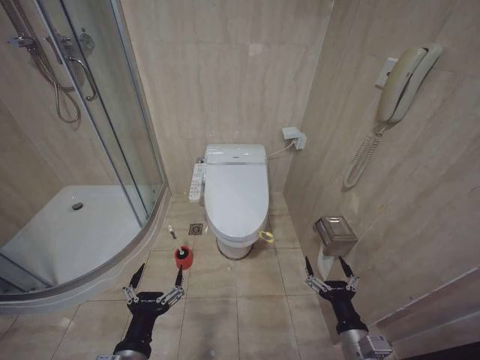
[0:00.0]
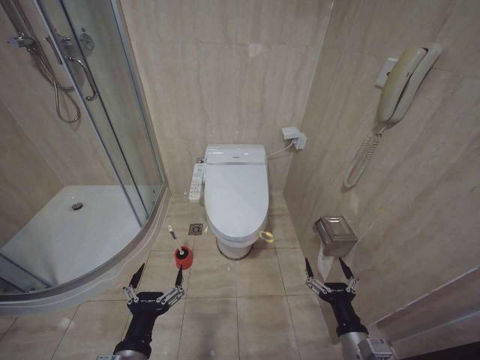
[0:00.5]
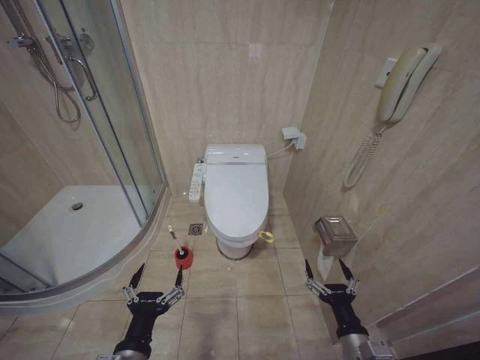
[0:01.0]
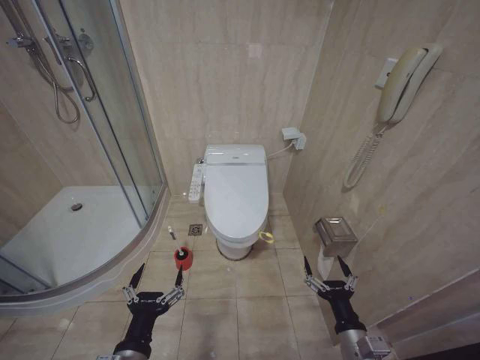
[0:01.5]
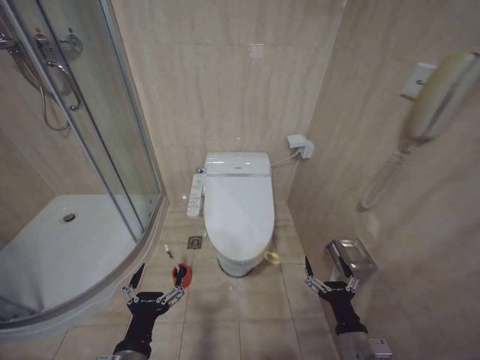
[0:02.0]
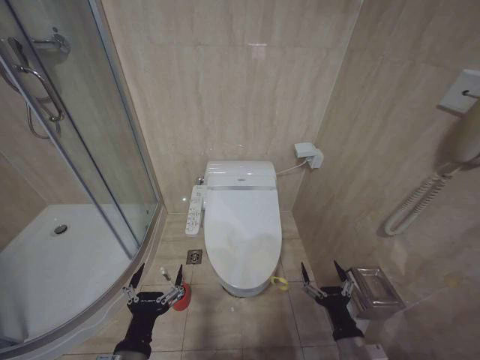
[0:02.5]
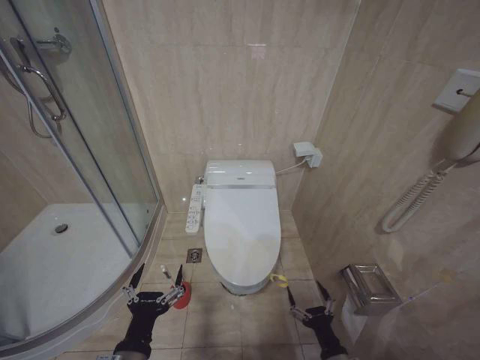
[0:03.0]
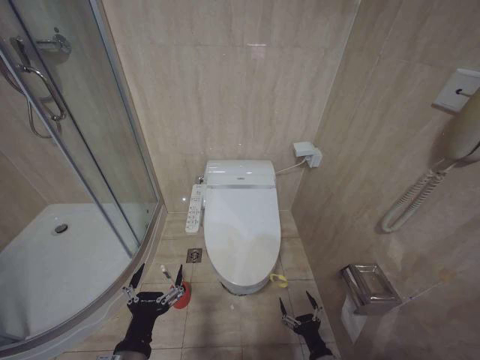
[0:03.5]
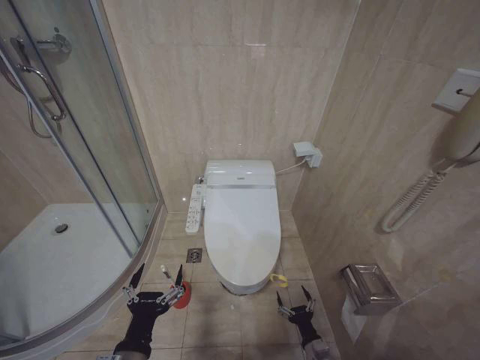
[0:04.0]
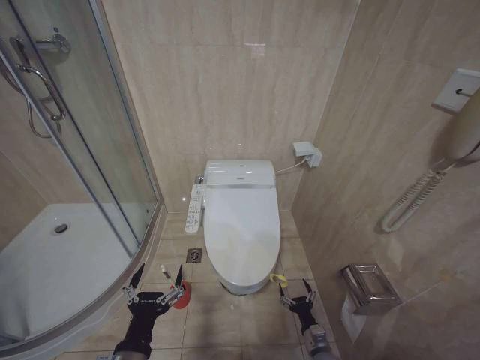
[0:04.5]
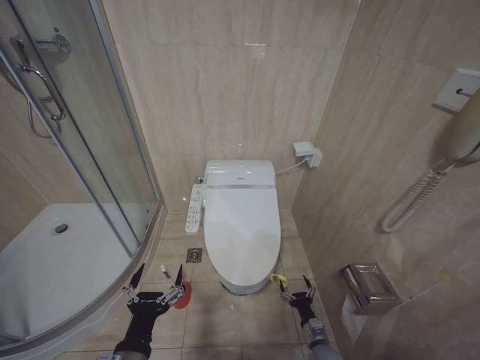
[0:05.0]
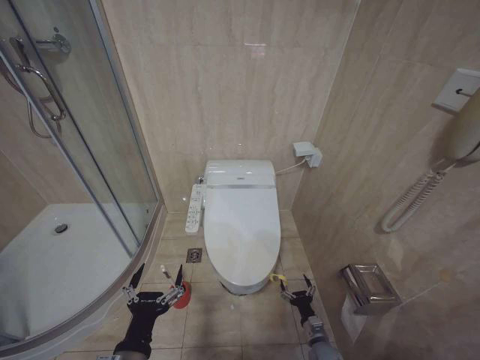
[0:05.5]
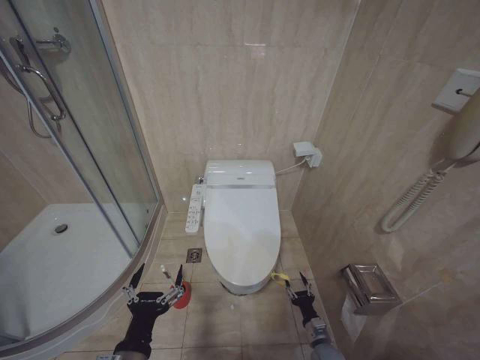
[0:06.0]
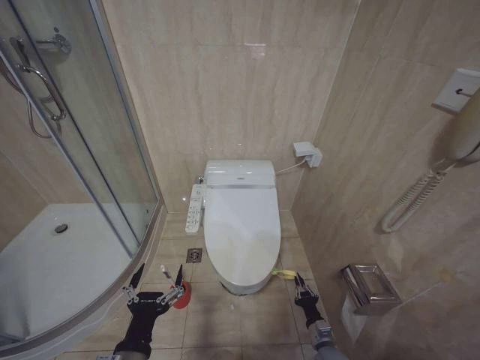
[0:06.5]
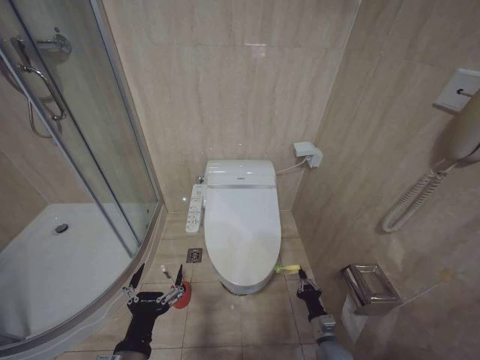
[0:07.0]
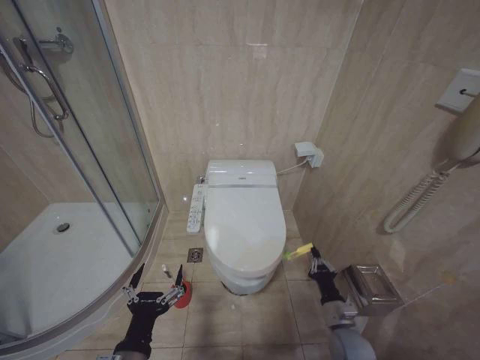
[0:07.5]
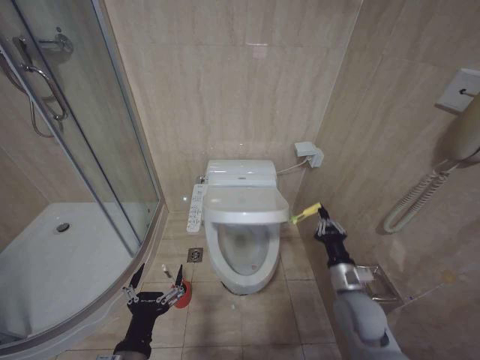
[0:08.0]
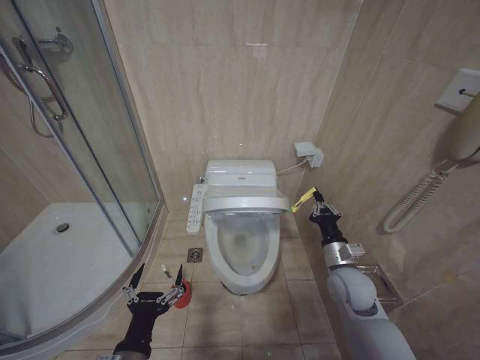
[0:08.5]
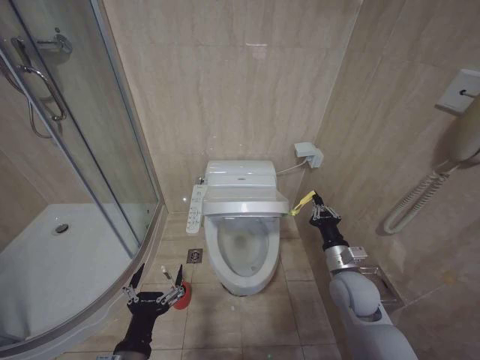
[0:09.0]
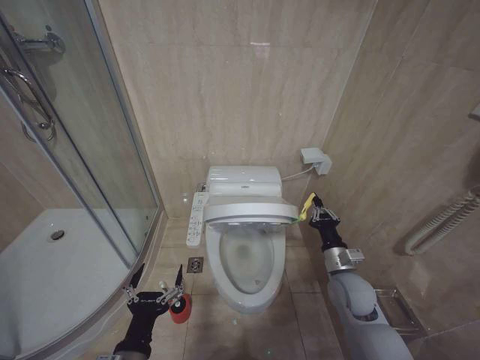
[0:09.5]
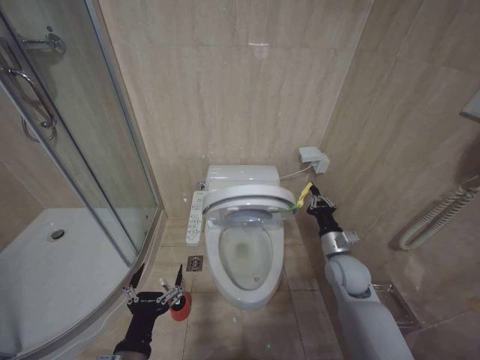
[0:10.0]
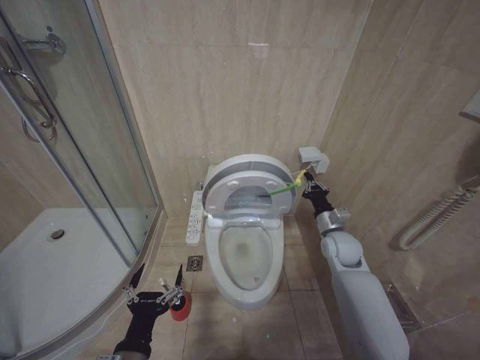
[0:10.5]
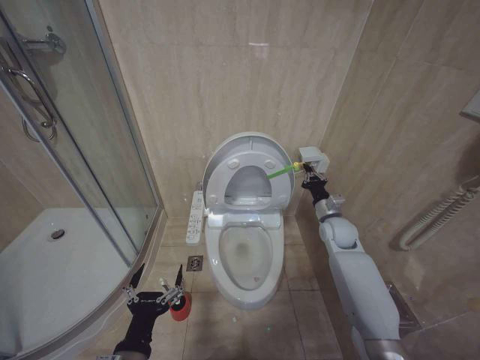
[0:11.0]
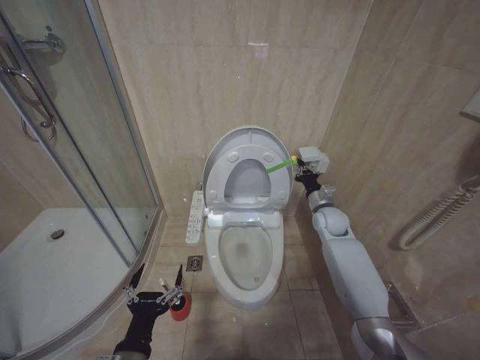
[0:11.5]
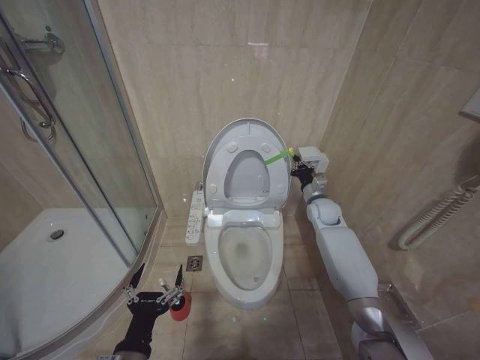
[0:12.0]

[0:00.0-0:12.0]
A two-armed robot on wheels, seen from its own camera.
Task of the whole recording: Open the toilet lid, clean the toilet bowl with a toilet brush, close the toilet lid, and flush.
0:02.0 to 0:04.0: The right gripper moves downward, approximately 20 cm.
0:04.0 to 0:06.0: The right gripper is displaced forward by about 5 cm.
0:06.0 to 0:08.0: The right gripper is displaced upward by roughly 25 cm, and closes.
0:08.0 to 0:10.0: The right gripper is displaced forward by approximately 10 cm.
0:10.0 to 0:12.0: The right gripper moves forward, roughly 20 cm.

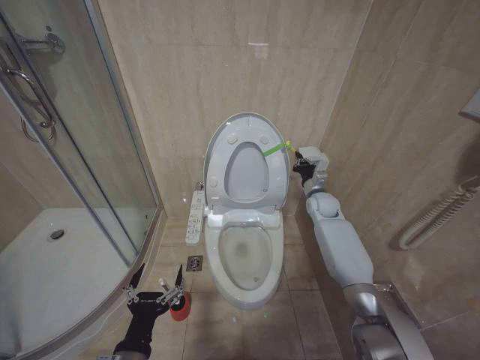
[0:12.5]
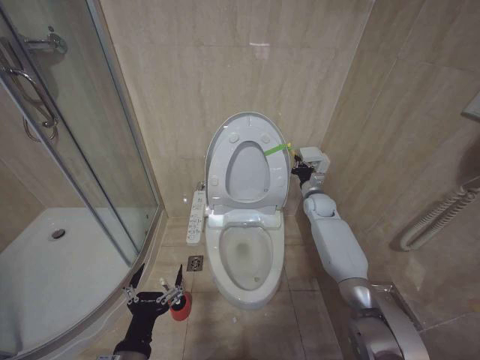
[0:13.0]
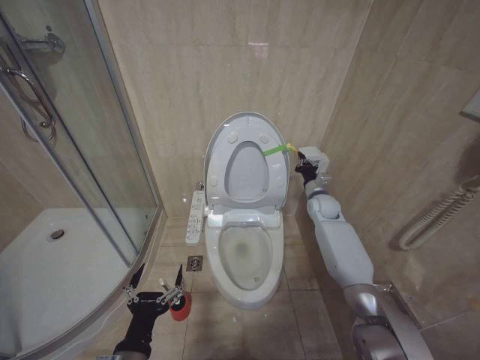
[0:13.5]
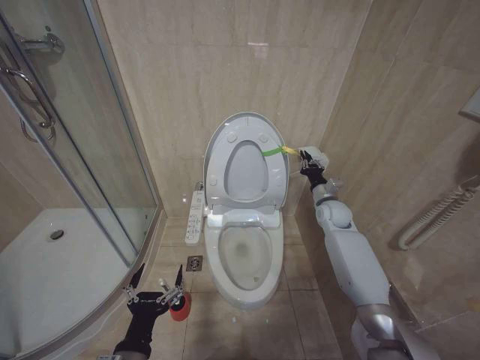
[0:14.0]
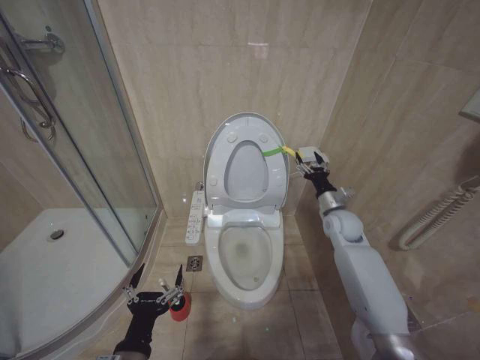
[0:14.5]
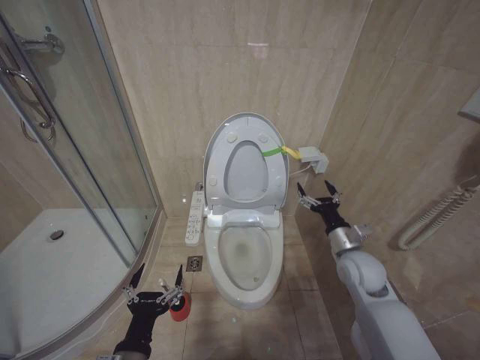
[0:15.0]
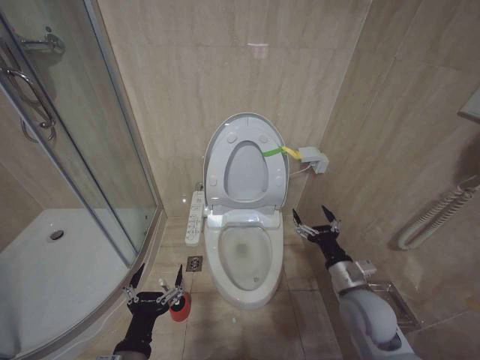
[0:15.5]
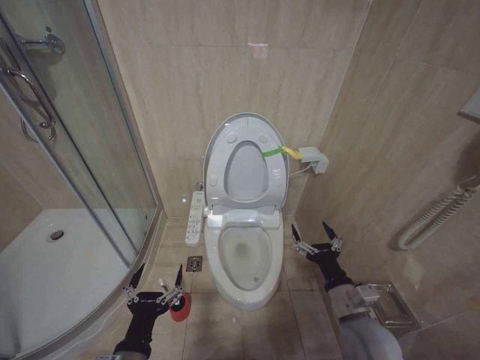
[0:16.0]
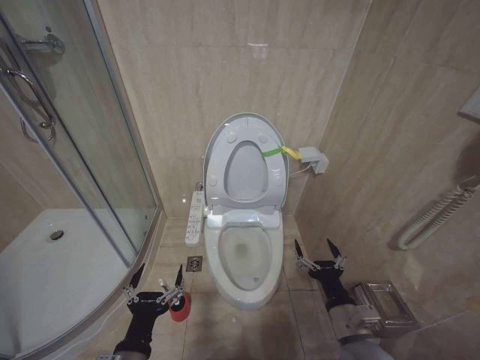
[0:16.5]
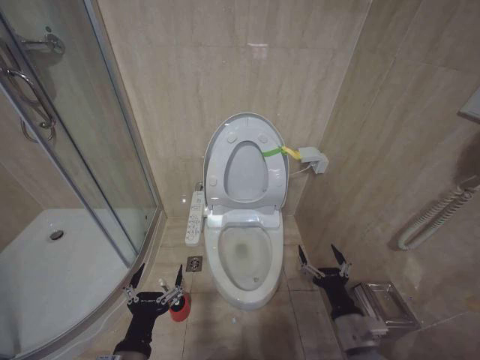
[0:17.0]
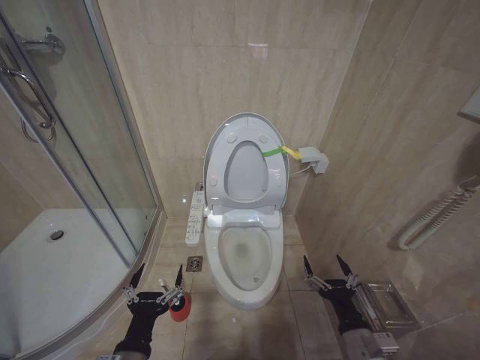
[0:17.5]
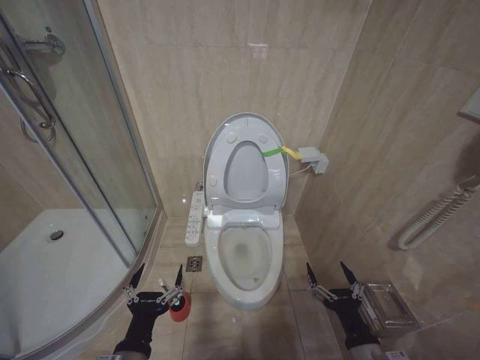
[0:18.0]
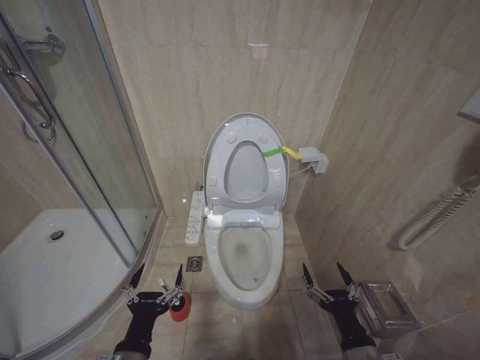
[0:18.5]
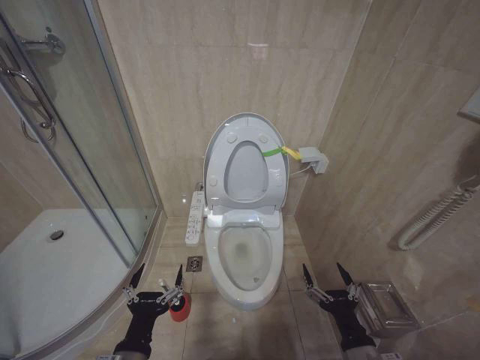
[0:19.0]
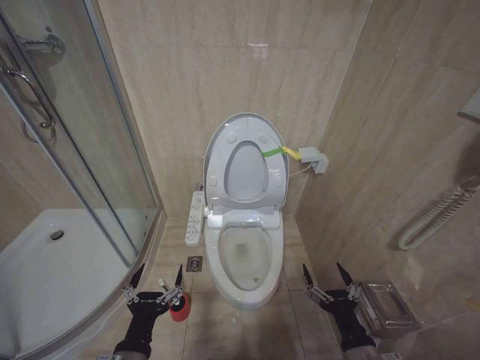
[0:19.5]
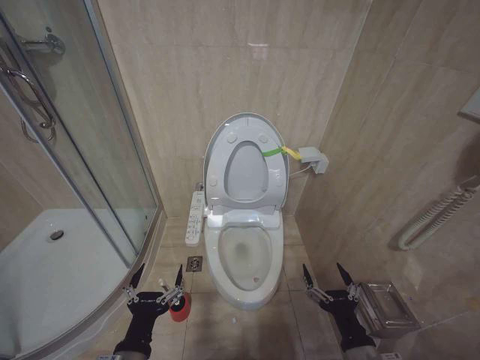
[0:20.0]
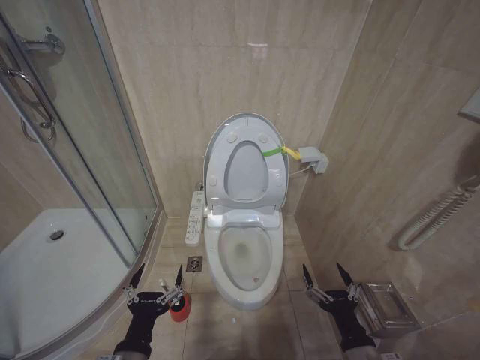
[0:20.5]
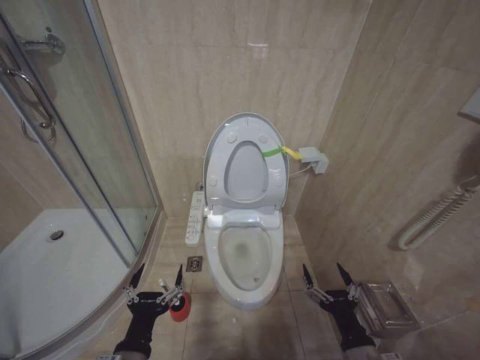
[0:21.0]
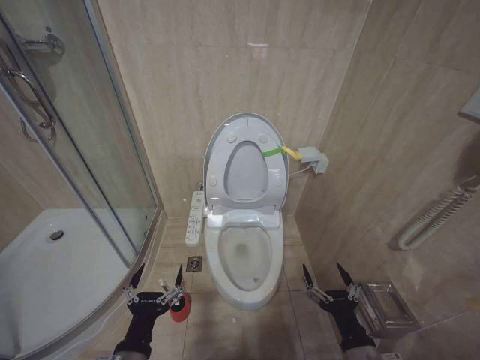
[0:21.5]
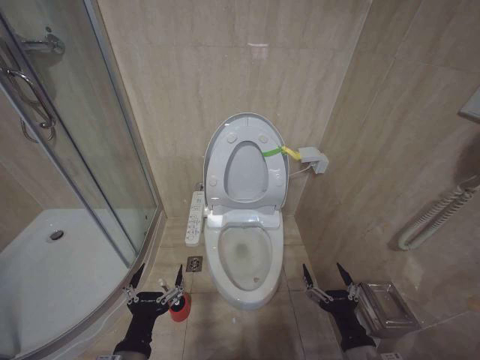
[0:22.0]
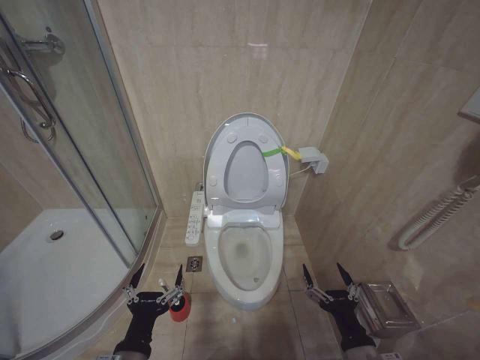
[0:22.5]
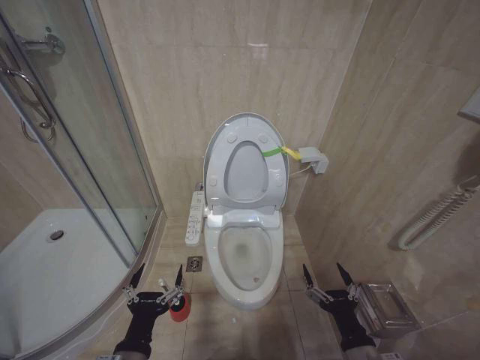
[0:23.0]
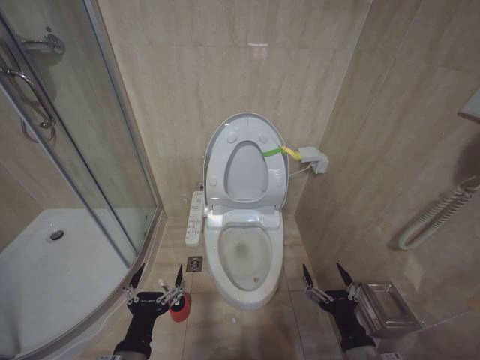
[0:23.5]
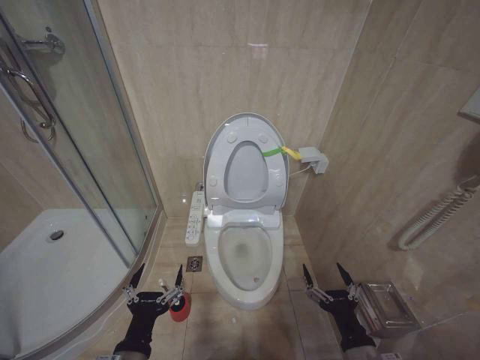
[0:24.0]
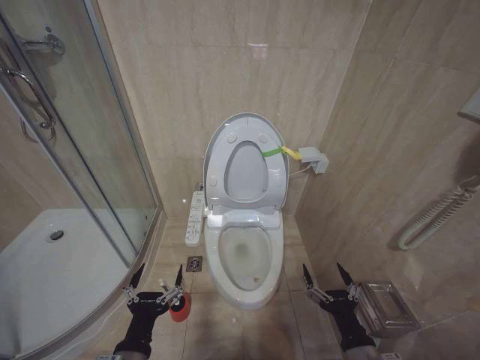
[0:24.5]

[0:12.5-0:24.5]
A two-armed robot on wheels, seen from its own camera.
Task of the whole recording: Open the toilet lid, clean the toilet bowl with a toilet brush, close the toilet lid, and flush.
0:12.5 to 0:14.5: The right gripper goes some 5 cm backward, and opens up.
0:14.5 to 0:16.5: The right gripper is displaced backward by some 30 cm, and opens its fingers.
0:16.5 to 0:18.5: The right gripper goes roughly 5 cm backward.
0:18.5 to 0:24.5: Neither gripper changes place.

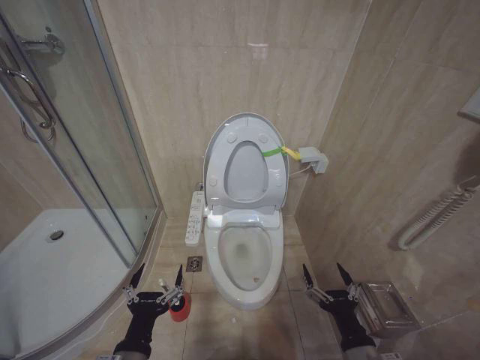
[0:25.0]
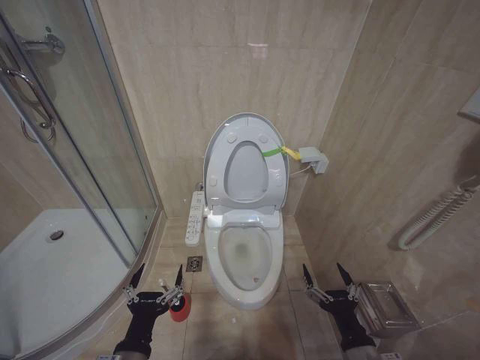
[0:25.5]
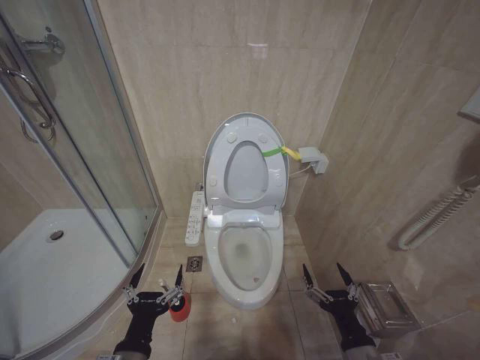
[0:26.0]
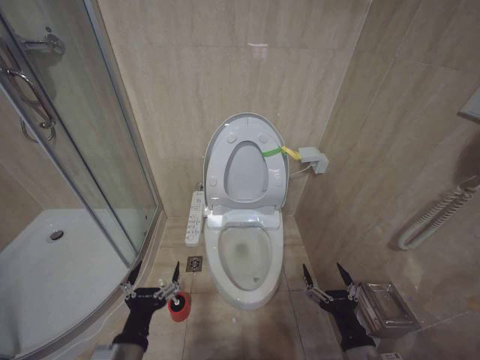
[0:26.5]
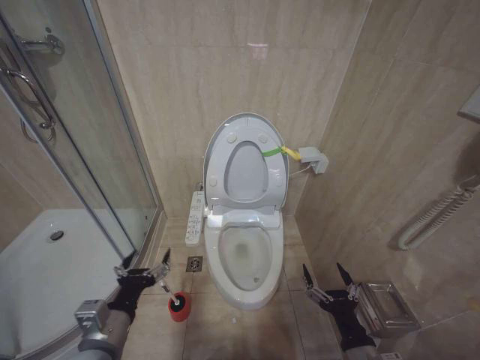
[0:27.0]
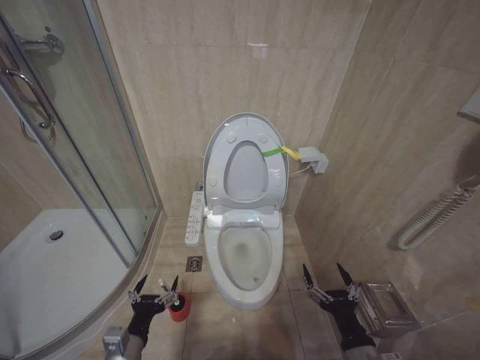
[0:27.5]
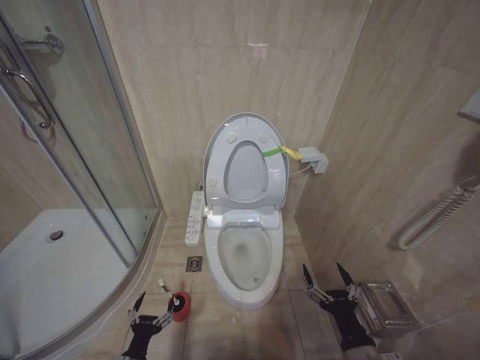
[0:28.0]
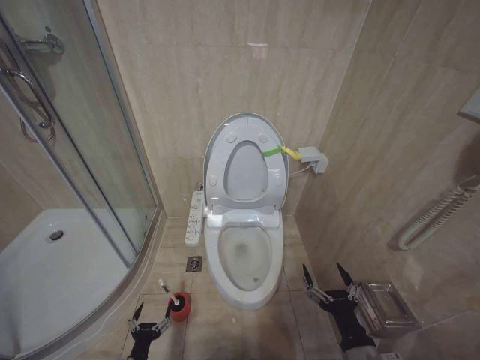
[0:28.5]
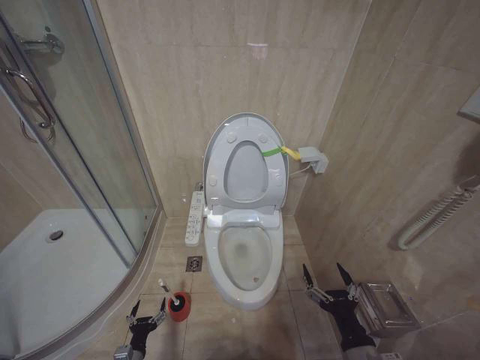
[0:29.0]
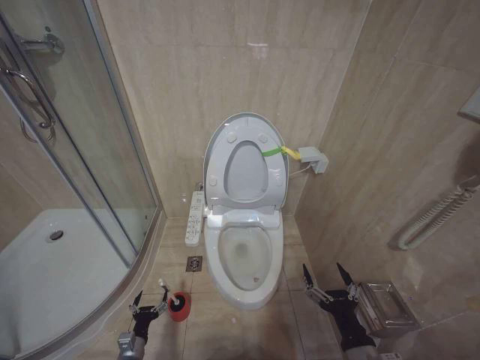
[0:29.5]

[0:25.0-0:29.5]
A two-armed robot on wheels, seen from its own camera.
Task of the whole recording: Open the toilet lid, clean the toilet bowl with a toilet brush, close the toilet lid, and flush.
0:25.0 to 0:27.0: The left gripper ends up approximately 10 cm from where it was.
0:27.0 to 0:29.5: The left gripper heads downward, covering approximately 35 cm.
